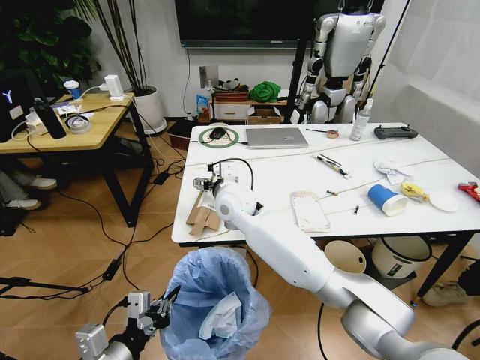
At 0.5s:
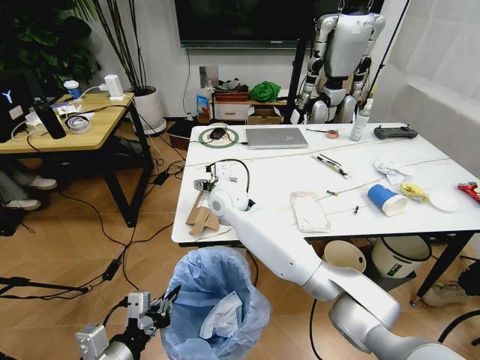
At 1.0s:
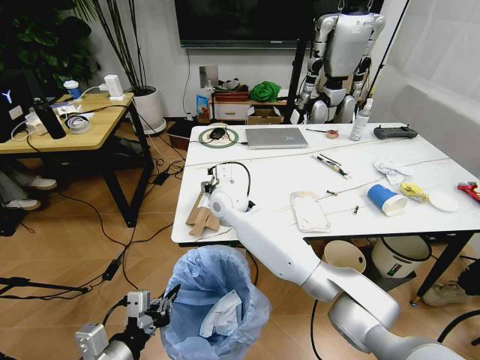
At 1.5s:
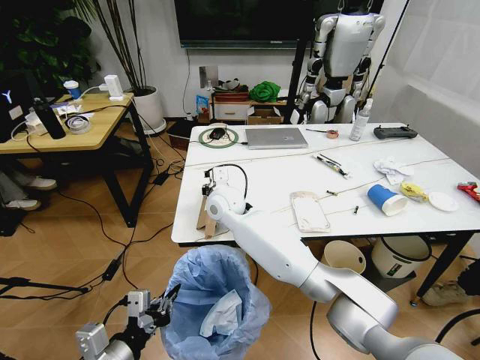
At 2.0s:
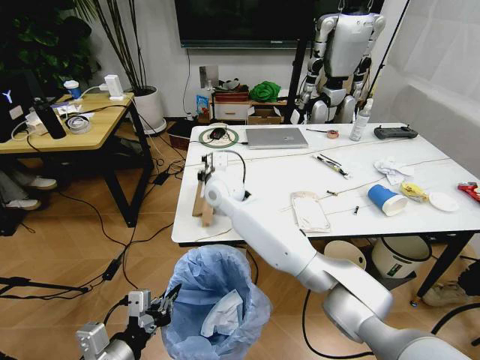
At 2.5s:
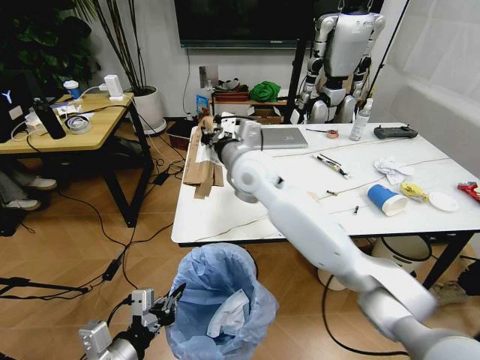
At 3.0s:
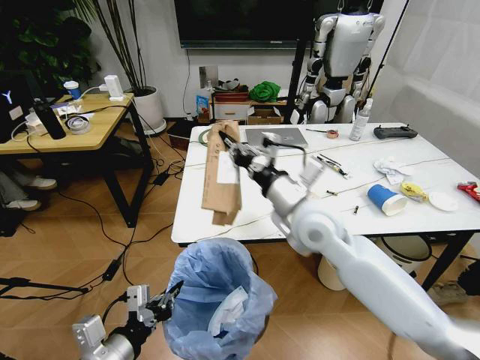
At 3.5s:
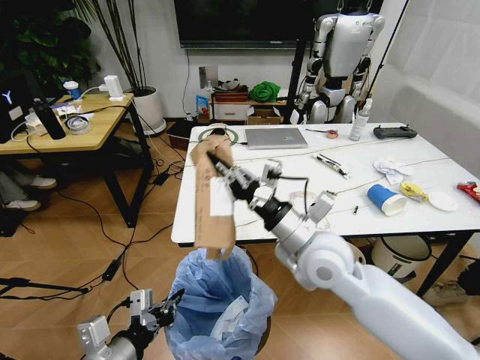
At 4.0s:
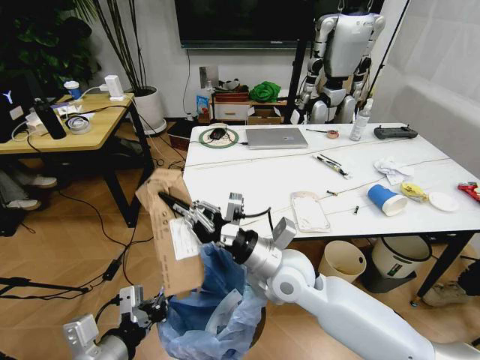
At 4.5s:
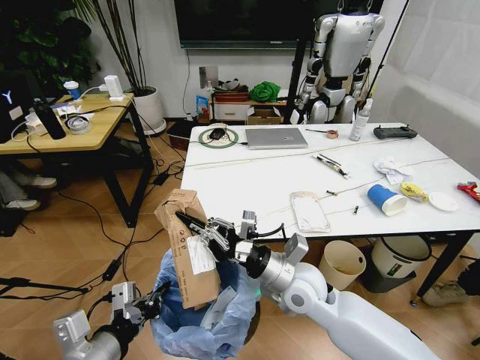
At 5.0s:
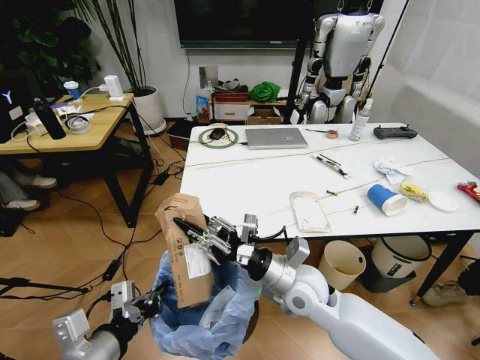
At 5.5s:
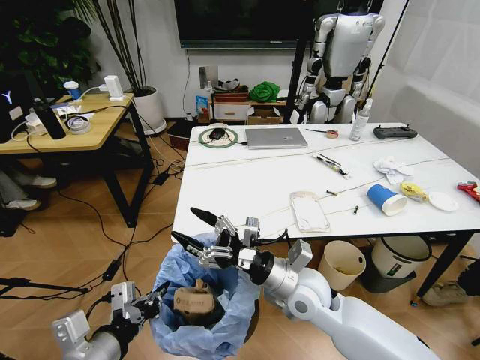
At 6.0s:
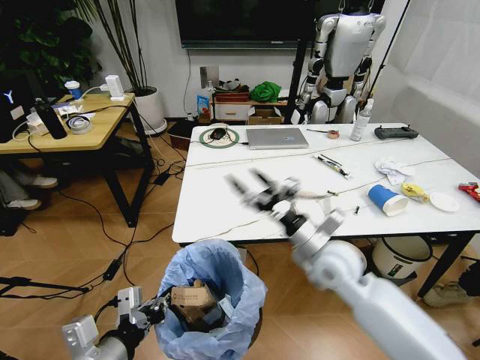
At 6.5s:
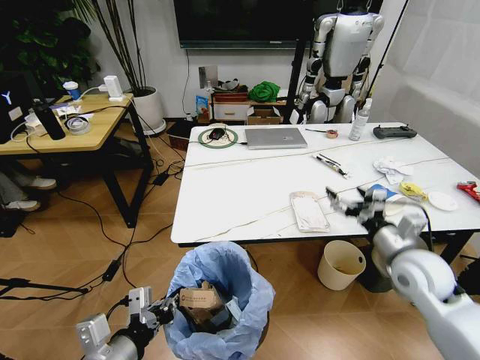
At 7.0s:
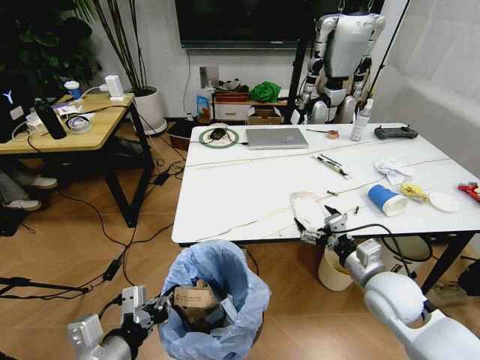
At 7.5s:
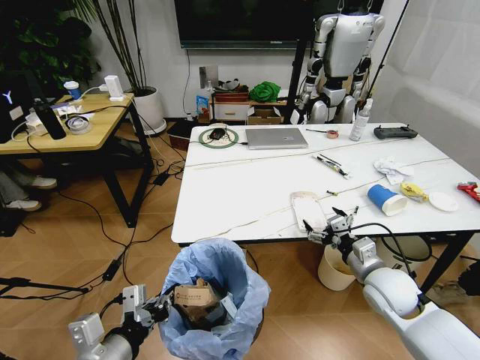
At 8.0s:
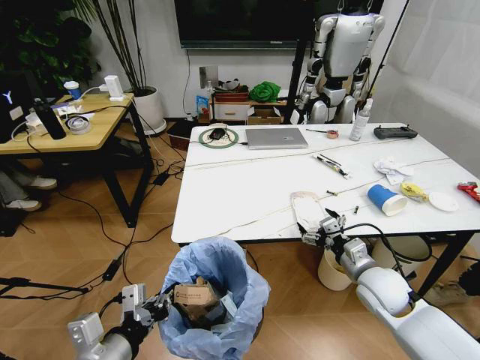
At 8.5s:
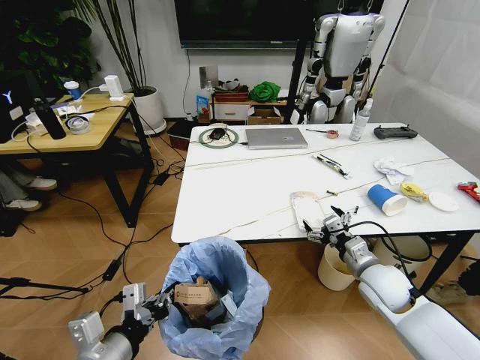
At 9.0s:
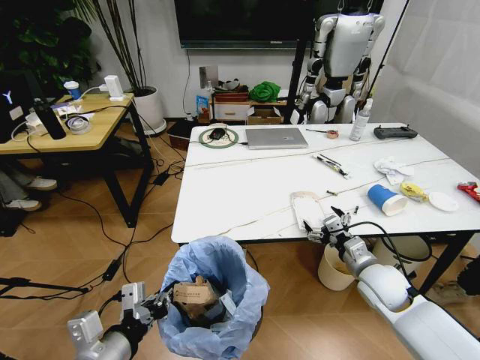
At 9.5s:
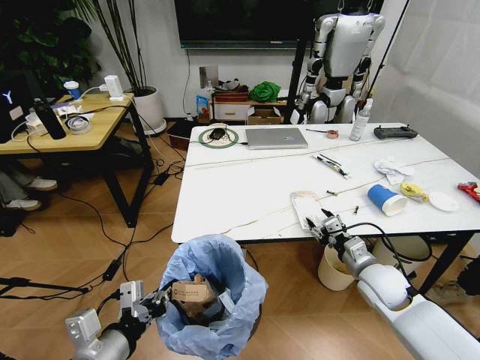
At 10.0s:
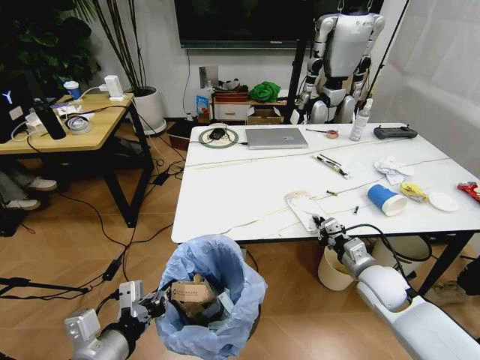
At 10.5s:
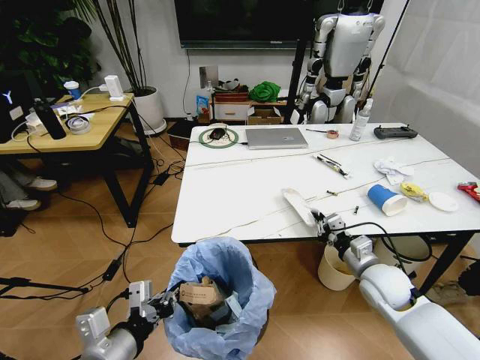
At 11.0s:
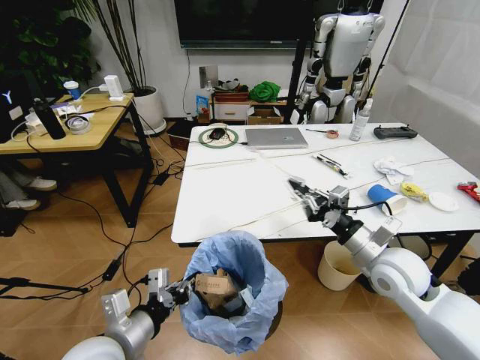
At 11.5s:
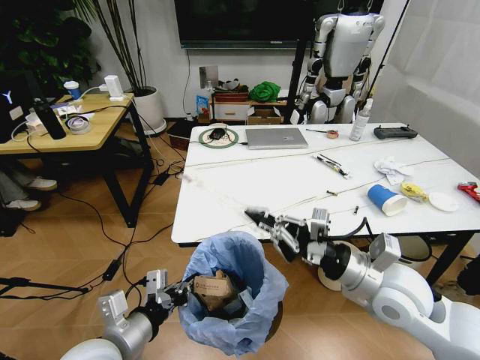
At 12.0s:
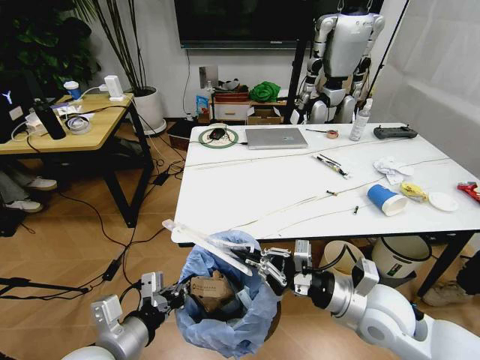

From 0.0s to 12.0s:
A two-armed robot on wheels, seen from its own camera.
Task of the whole recording: Pick up the trash bin and place the trash from the table into it.
From 0.0s to 2.0s: The right gripper closes up.
From 2.0s to 4.0s: The right gripper heads backward and to the right, covering approximately 25 cm.
From 4.0s to 6.0s: The right gripper travels to the right by approximately 10 cm, and opens up.
From 6.0s to 8.0s: The right gripper shifts roughly 15 cm to the right and downward.
From 8.0s to 10.0s: The right gripper closes up.
From 10.0s to 12.0s: The right gripper shifts approximately 15 cm upward, backward and to the left.

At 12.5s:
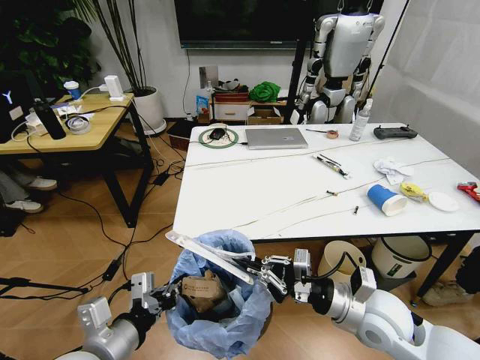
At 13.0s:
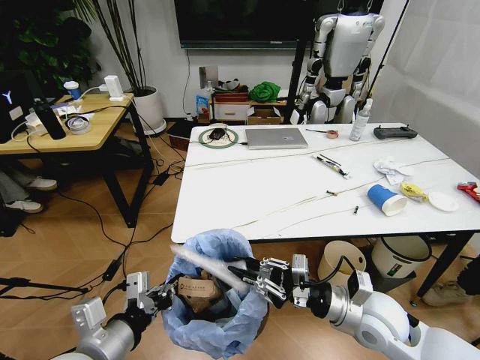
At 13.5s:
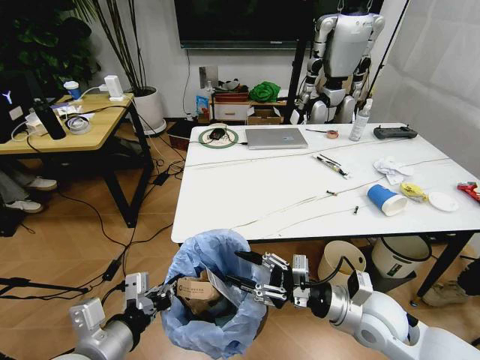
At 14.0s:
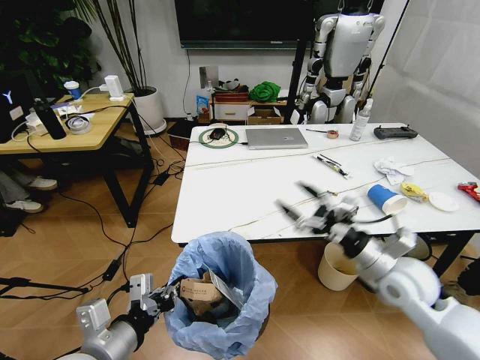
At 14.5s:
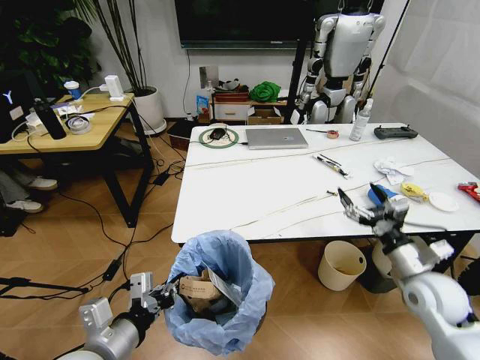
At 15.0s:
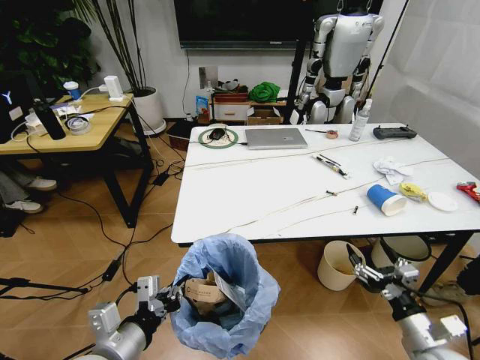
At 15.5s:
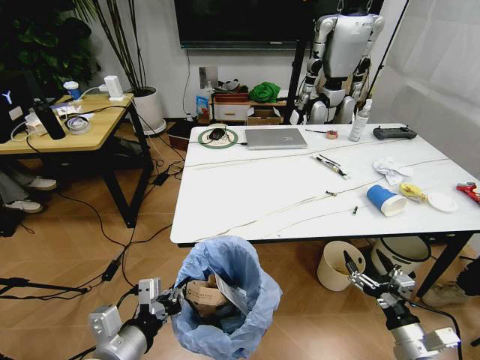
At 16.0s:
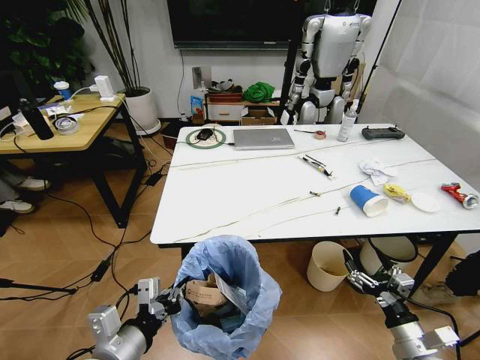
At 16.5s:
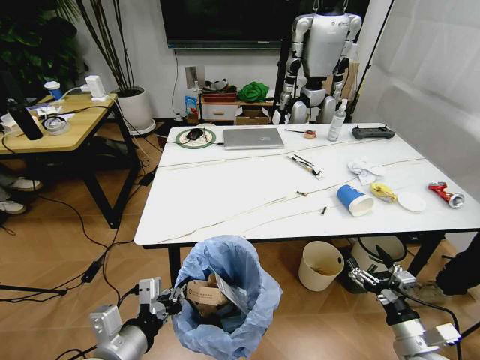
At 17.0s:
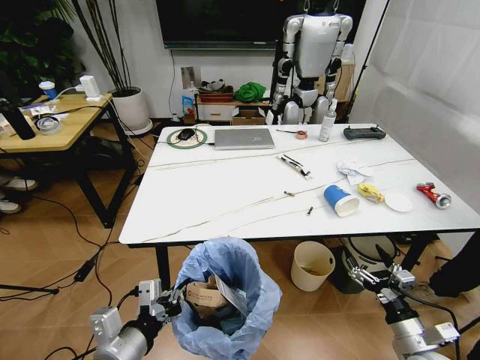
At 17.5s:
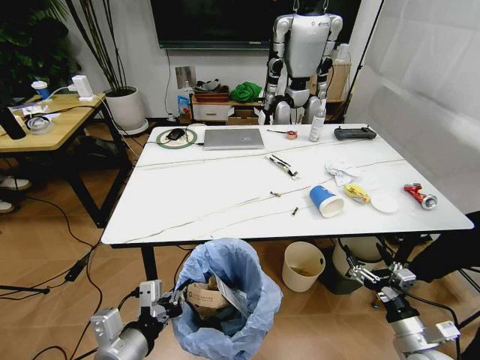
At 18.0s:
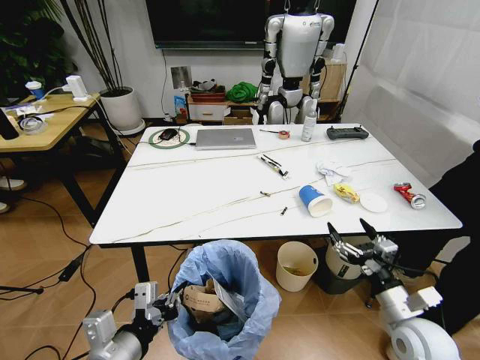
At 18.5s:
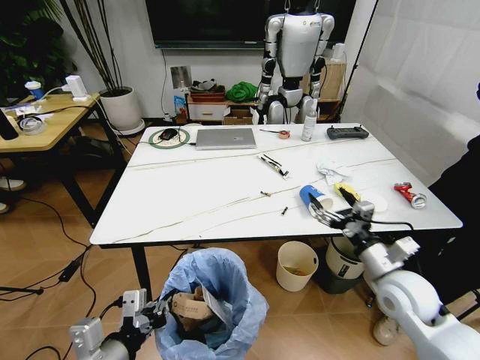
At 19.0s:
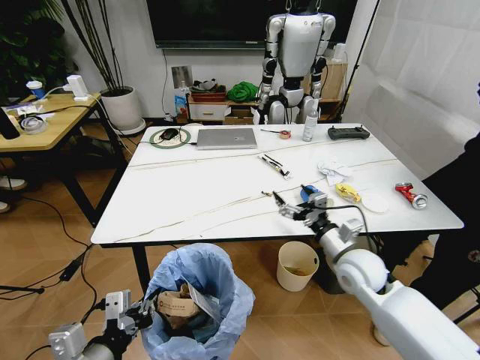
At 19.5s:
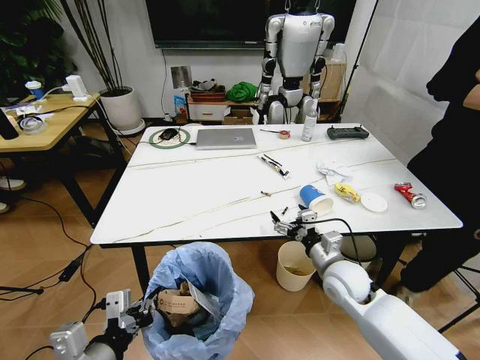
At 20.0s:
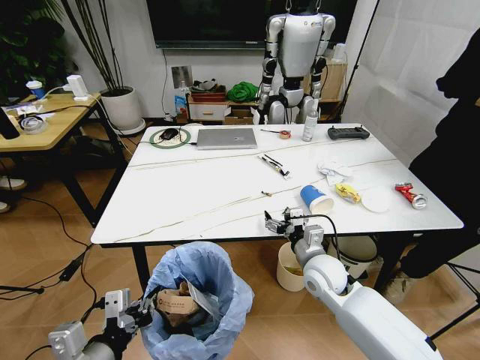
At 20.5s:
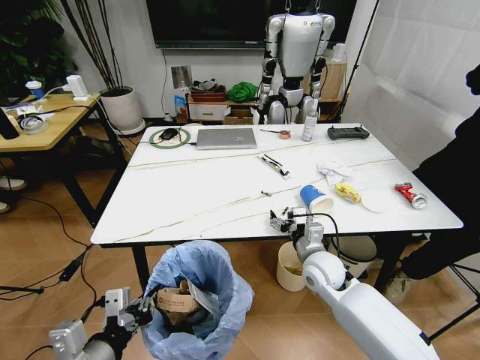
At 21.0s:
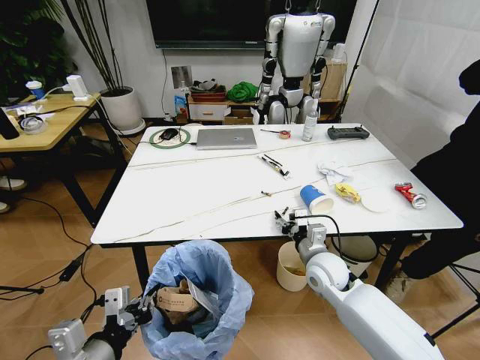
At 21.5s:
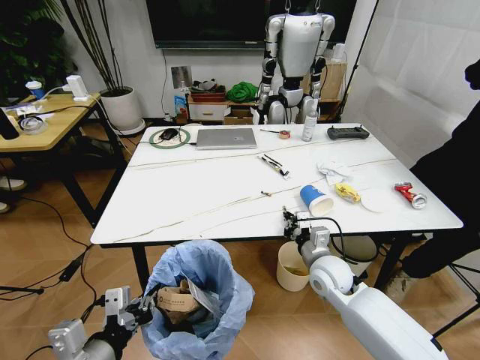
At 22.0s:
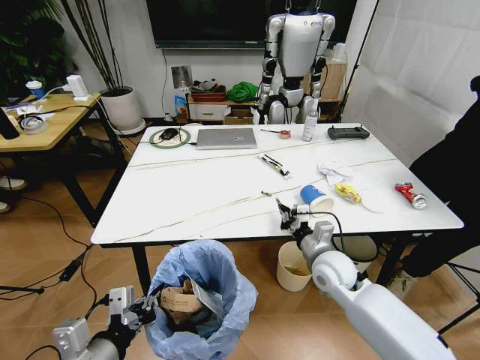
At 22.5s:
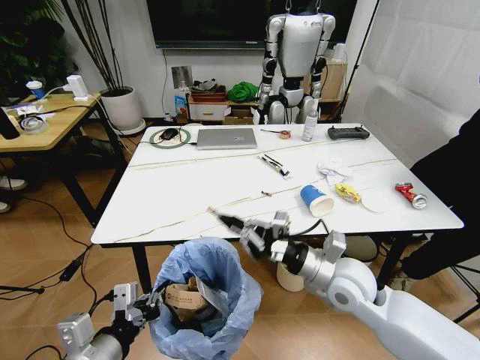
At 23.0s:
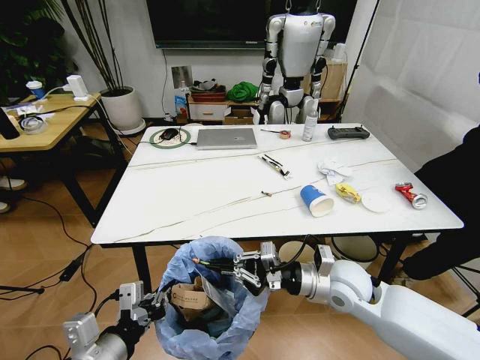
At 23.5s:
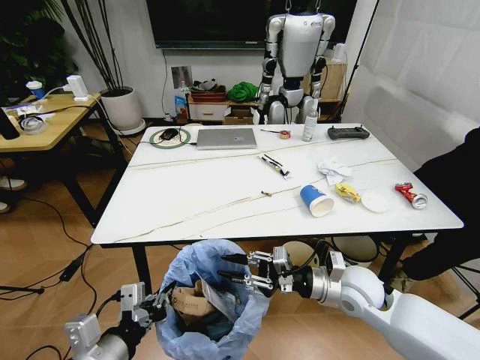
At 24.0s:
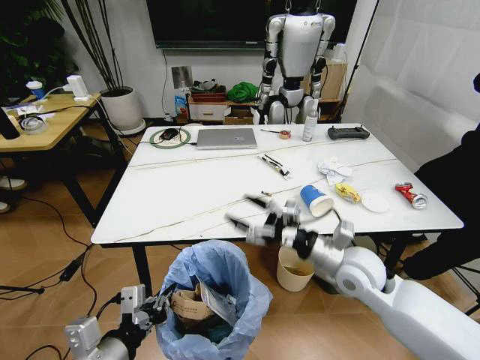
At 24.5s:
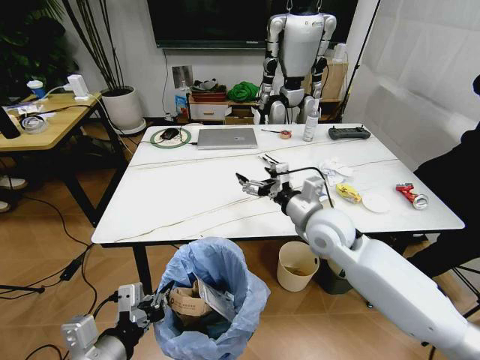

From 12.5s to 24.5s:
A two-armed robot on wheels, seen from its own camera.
Task of the whole recording: Pick up the trash bin and place the trash from the table into it.
From 12.5s to 14.5s: The right gripper goes roughly 15 cm to the right, and opens its fingers.
From 14.5s to 16.5s: The right gripper goes some 15 cm backward and downward.
From 16.5s to 18.5s: The right gripper is displaced forward, upward and to the left by roughly 15 cm.
From 18.5s to 20.5s: The right gripper is displaced to the left, forward and downward by approximately 15 cm.
From 20.5s to 22.5s: The right gripper travels upward and backward by about 10 cm, and closes up.
From 22.5s to 24.5s: The right gripper heads forward and upward, covering about 10 cm, and opens up.

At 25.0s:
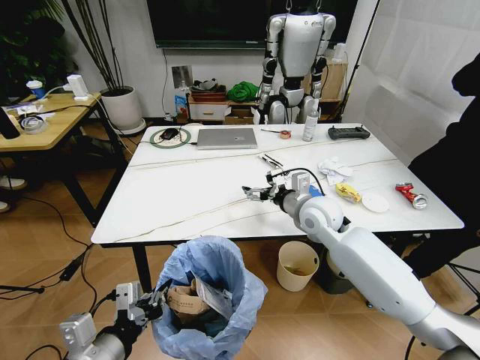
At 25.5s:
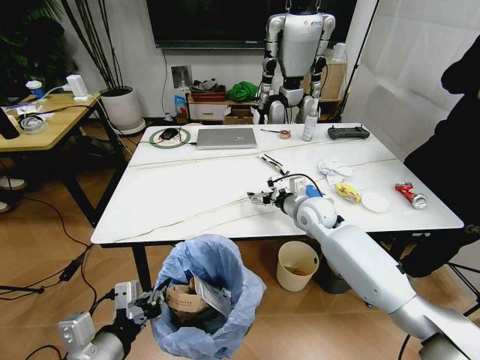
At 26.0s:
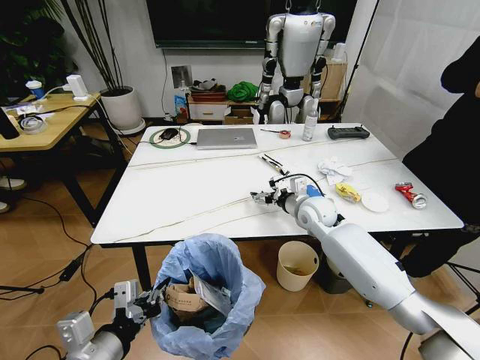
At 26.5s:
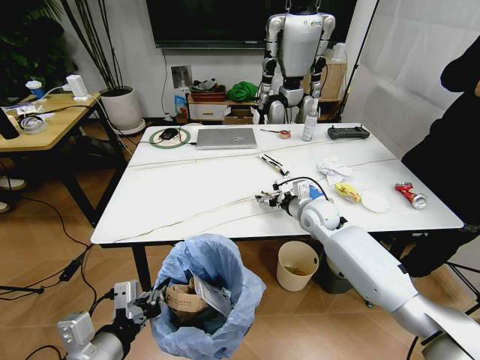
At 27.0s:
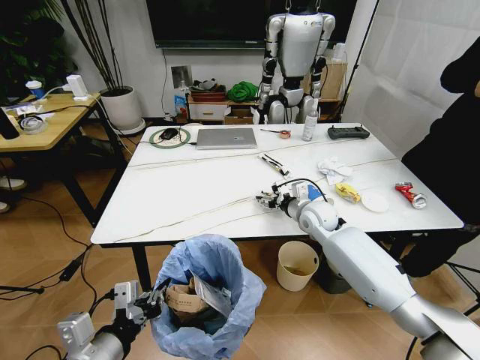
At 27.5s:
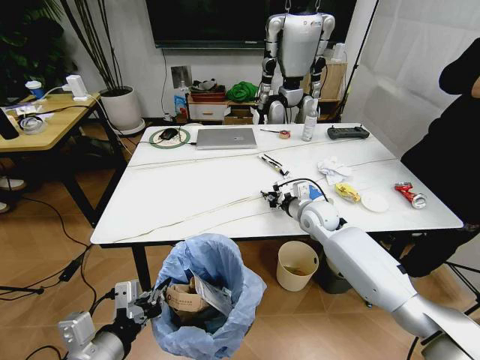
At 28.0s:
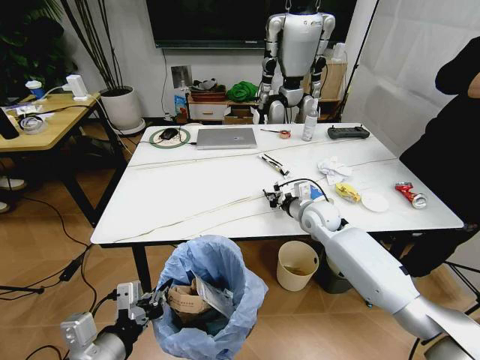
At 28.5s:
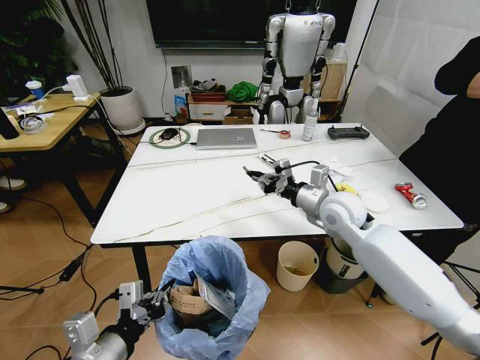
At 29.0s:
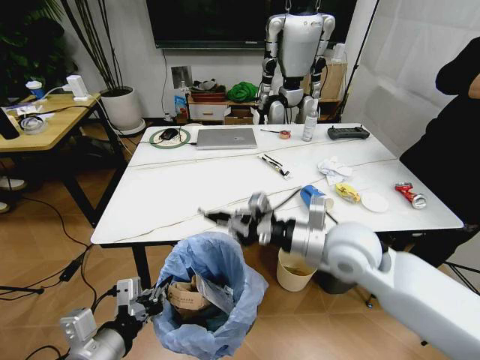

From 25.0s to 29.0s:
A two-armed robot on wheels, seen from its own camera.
Task of the whole recording: Pick up the trash bin and place the trash from the table into it.
From 25.0s to 27.0s: The right gripper heads downward, covering roughly 5 cm.
From 27.0s to 29.0s: The right gripper goes approximately 20 cm backward and upward, and closes its fingers.
